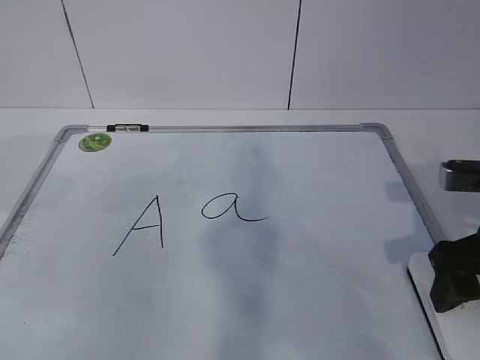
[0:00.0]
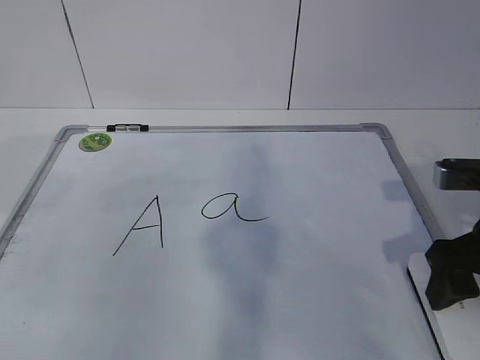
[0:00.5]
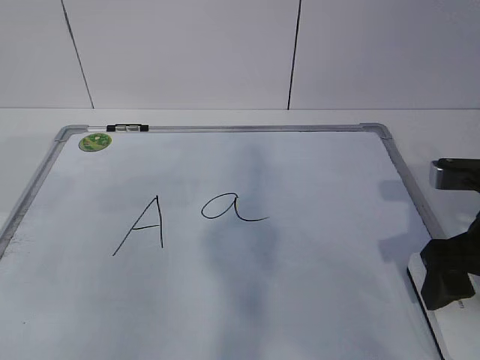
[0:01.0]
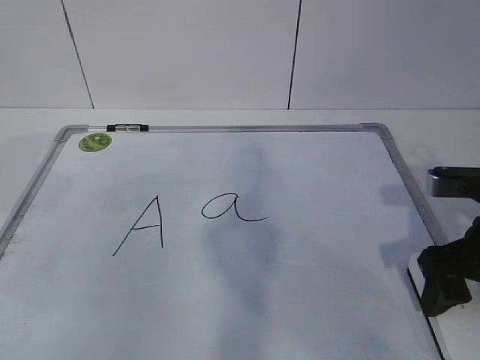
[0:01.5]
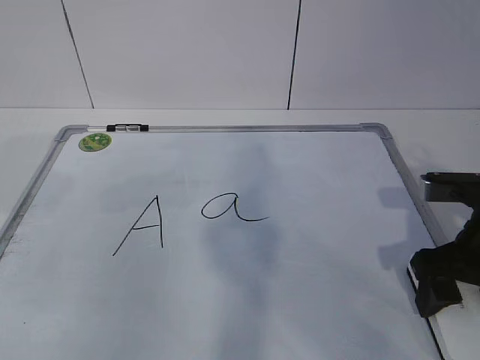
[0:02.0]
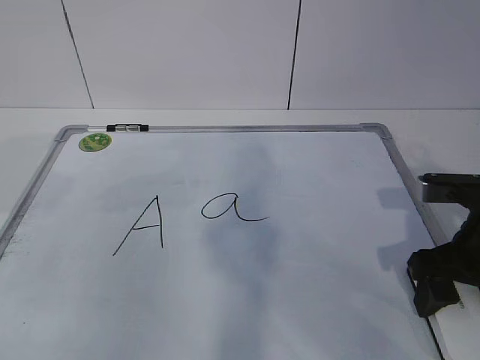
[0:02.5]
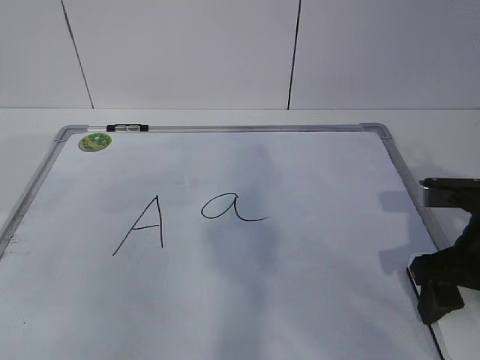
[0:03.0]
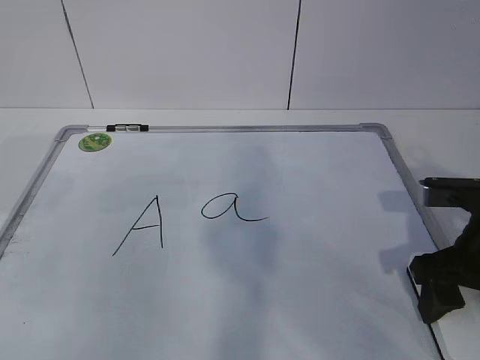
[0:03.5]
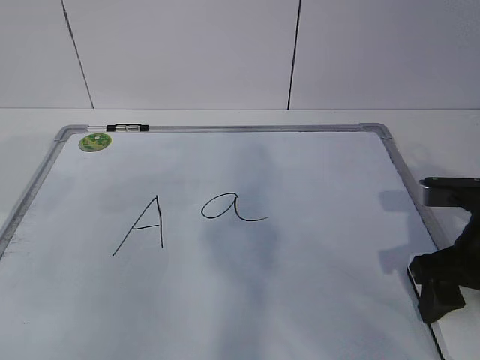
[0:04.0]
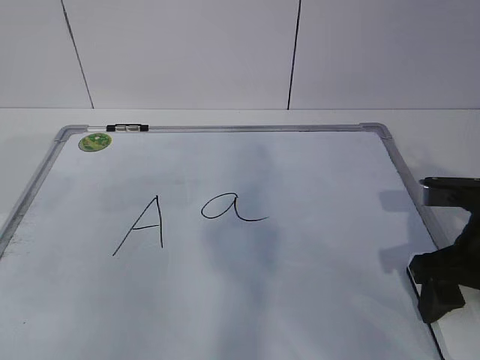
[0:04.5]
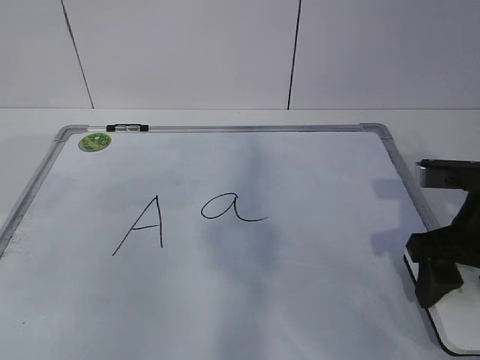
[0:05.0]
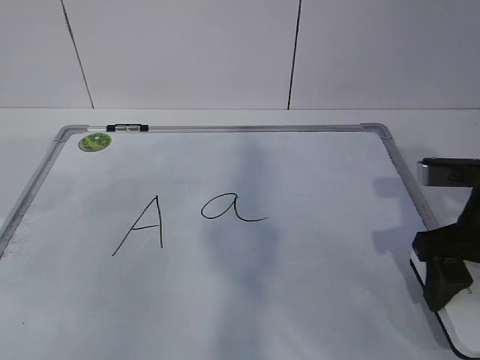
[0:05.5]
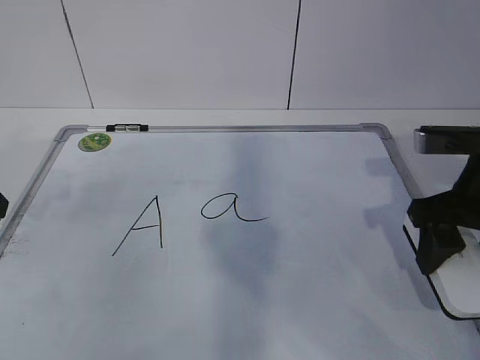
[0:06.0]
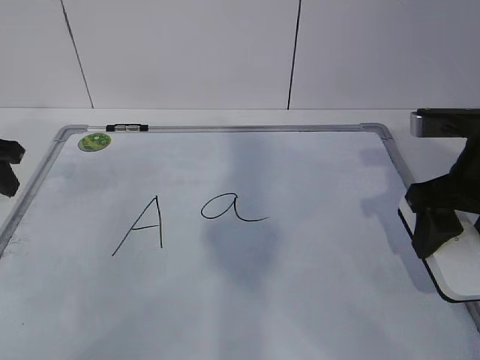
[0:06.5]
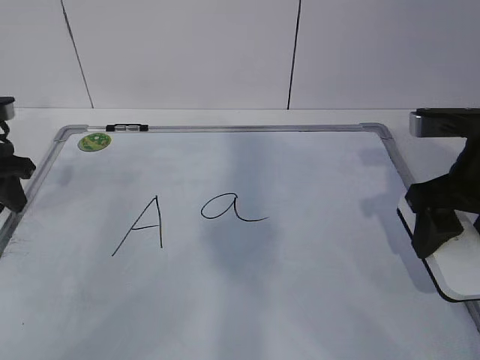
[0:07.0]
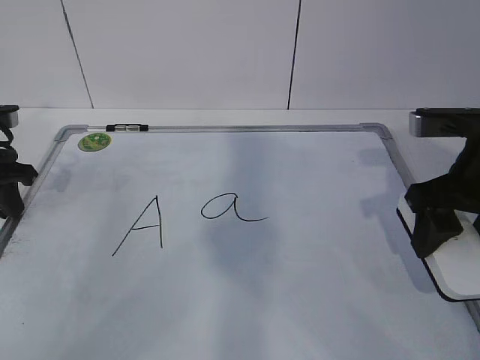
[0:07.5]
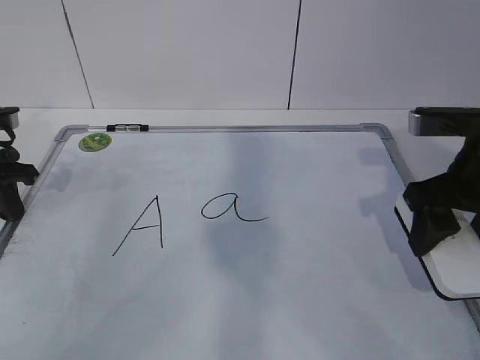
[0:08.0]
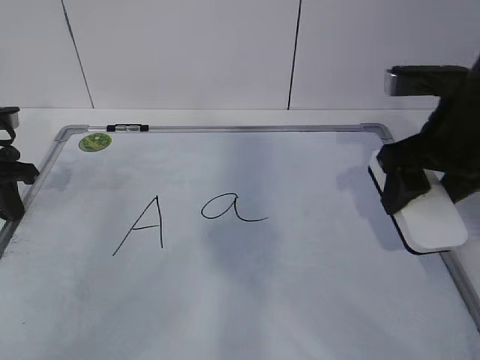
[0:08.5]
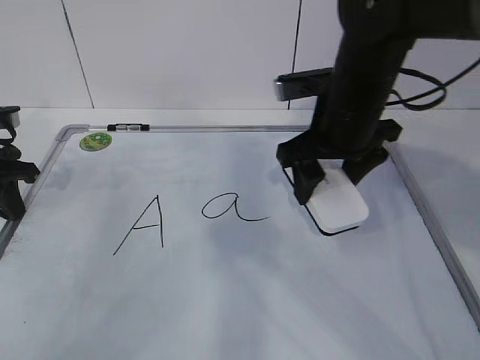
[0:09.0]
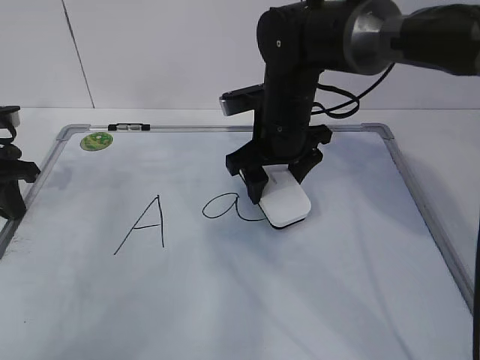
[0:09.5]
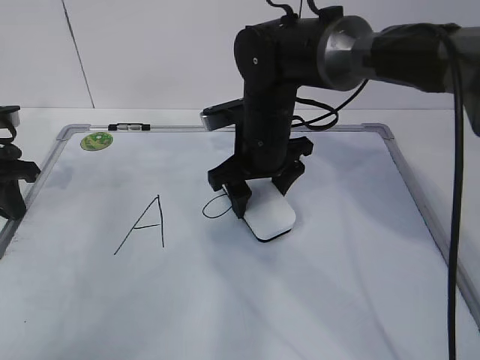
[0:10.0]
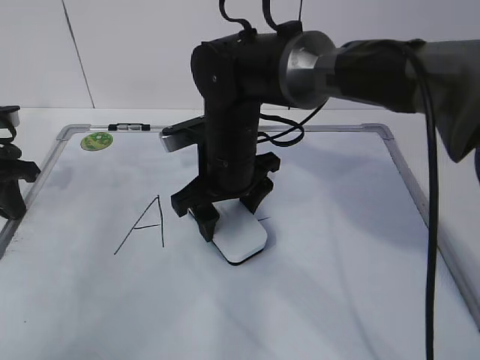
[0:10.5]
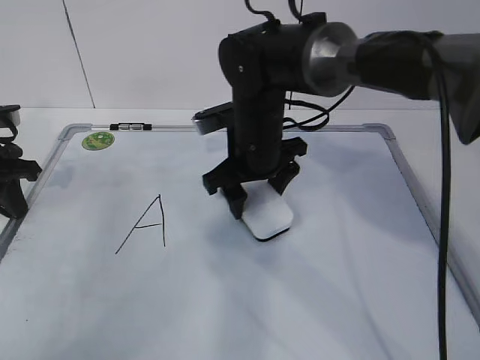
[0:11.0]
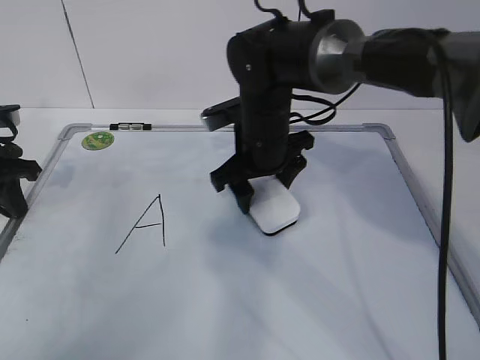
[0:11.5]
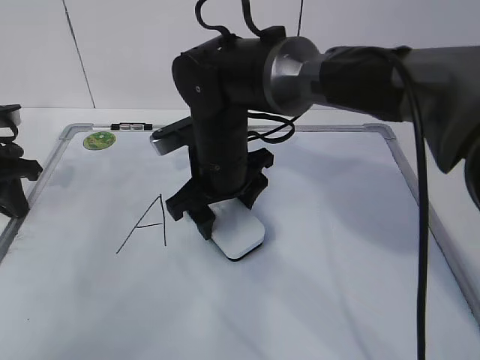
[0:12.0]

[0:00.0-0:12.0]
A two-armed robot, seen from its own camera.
Task of the whole recording: pick up the eraser on the blackboard and erase the letter "a".
Step, 0:05.5 to 0:08.0: Erase the letter a with your right hand.
0:00.0 to 0:02.0: The grippers stay close to where they were, moving slightly.
0:02.0 to 0:04.0: The two grippers keep their place.
0:04.0 to 0:06.0: The right gripper moves about 5 cm.
0:06.0 to 0:08.0: The left gripper travels forward and downward by some 15 cm, and closes up.
0:08.0 to 0:10.0: The right gripper shifts some 20 cm to the left and forward.
0:10.0 to 0:12.0: The right gripper swings left and right, about 5 cm each way, with 2 reversals.

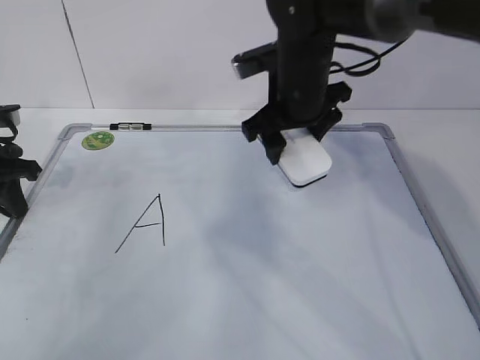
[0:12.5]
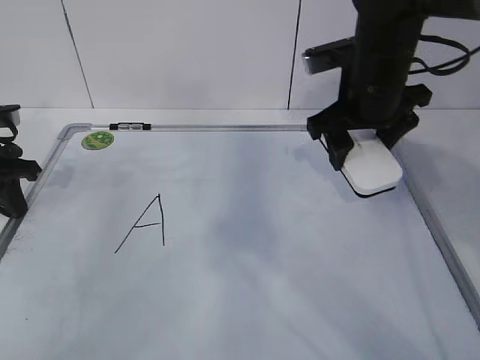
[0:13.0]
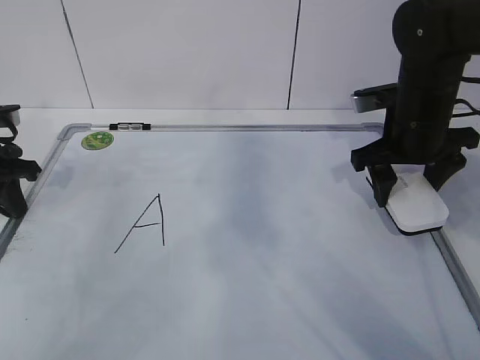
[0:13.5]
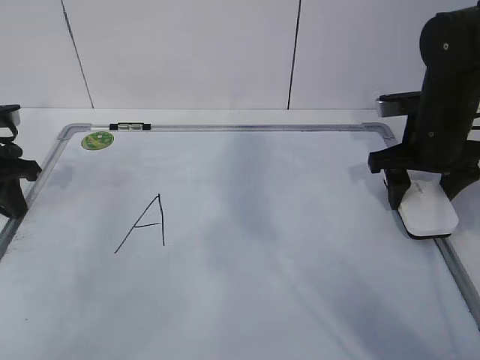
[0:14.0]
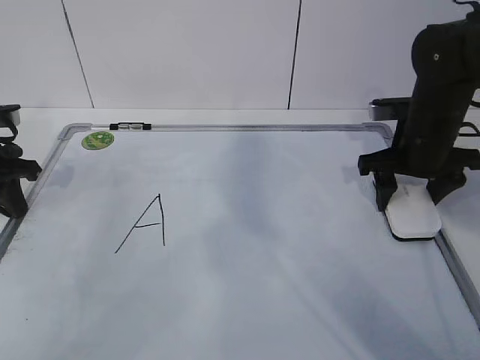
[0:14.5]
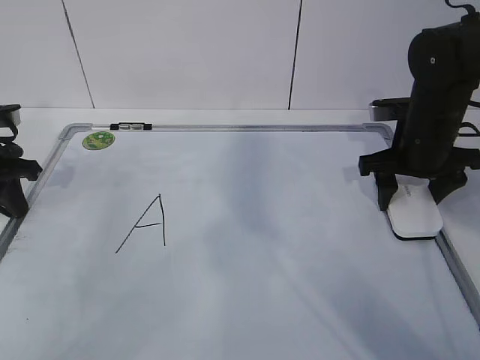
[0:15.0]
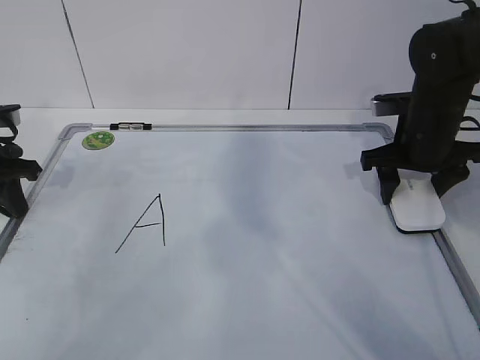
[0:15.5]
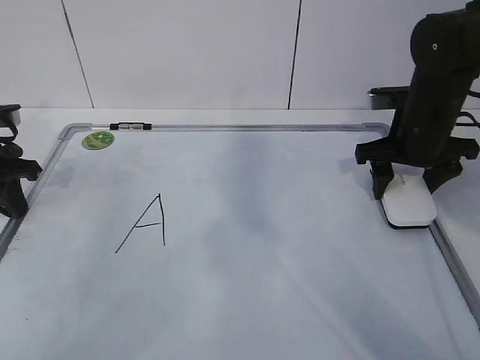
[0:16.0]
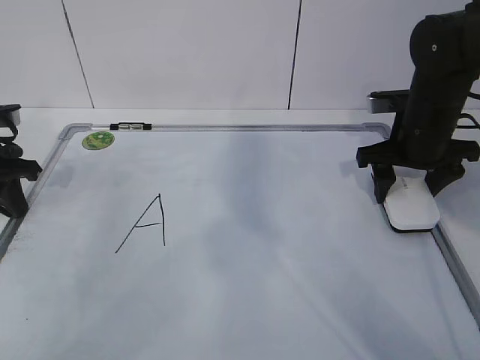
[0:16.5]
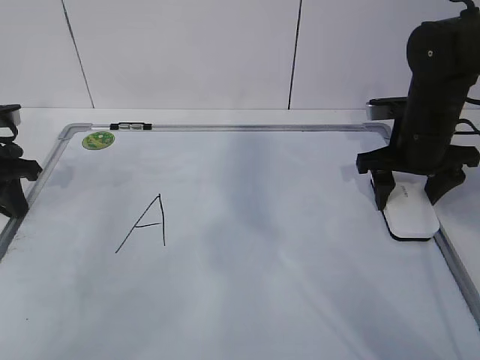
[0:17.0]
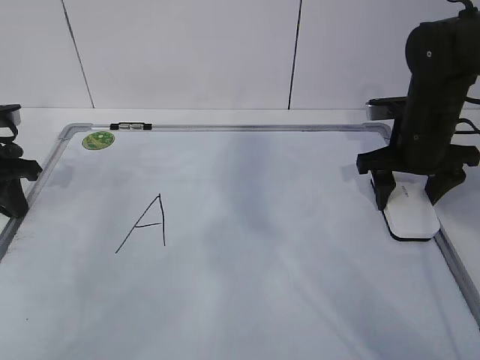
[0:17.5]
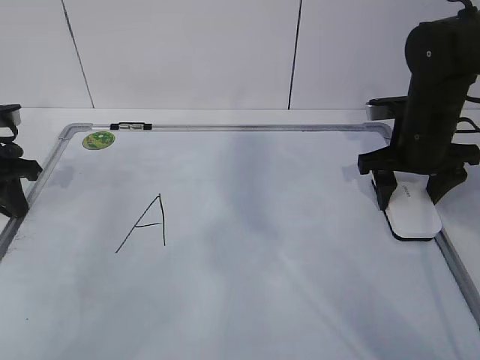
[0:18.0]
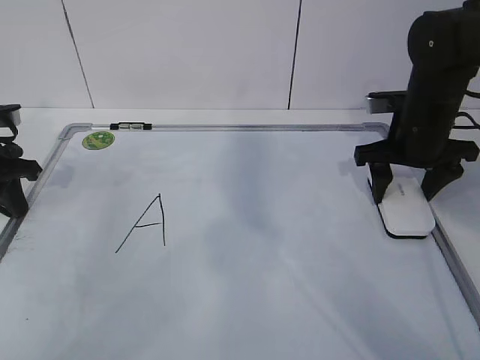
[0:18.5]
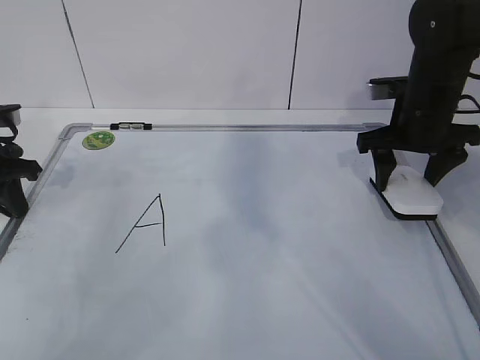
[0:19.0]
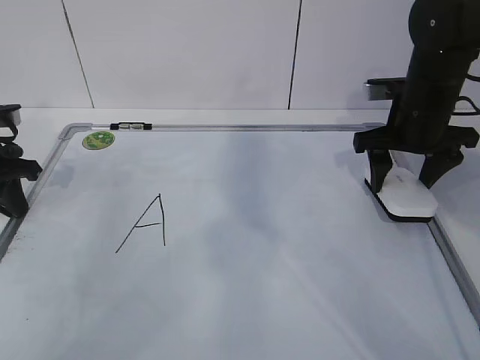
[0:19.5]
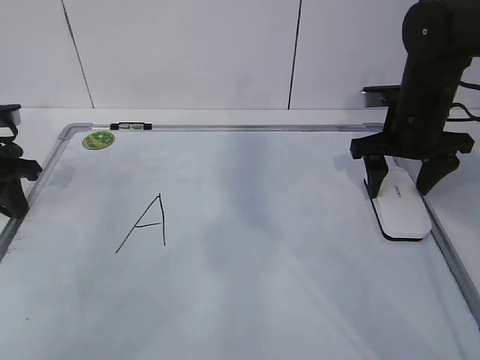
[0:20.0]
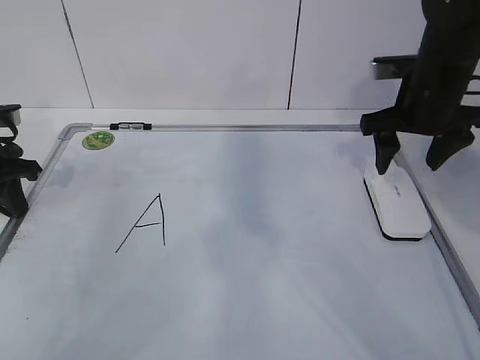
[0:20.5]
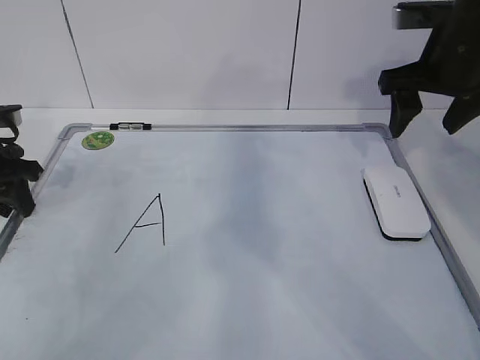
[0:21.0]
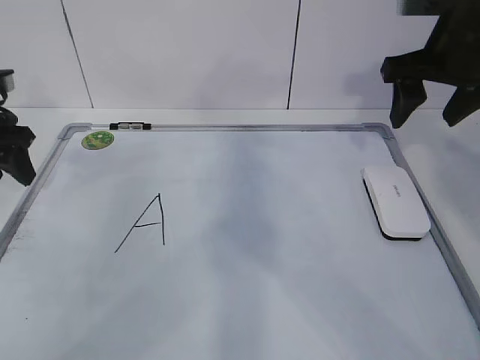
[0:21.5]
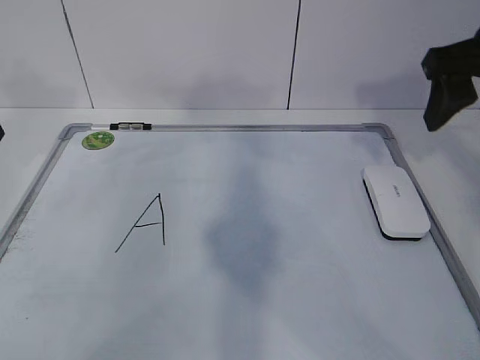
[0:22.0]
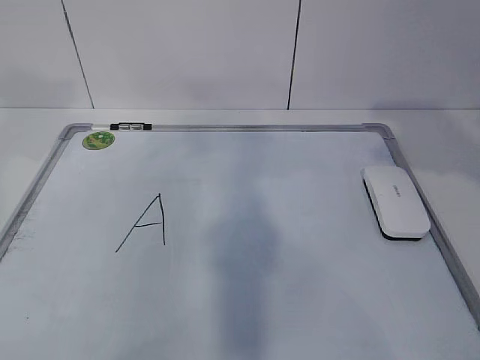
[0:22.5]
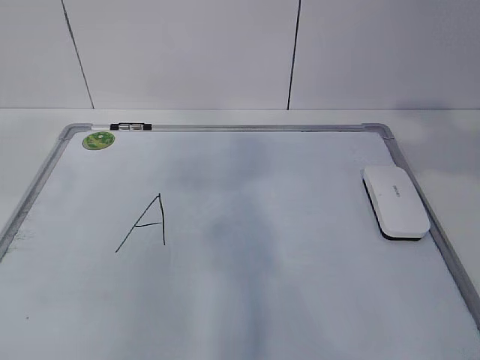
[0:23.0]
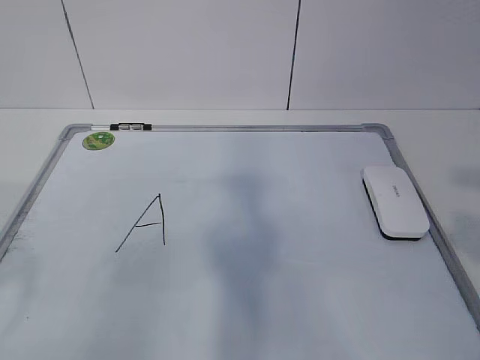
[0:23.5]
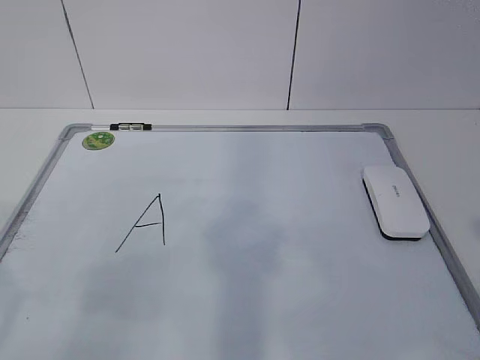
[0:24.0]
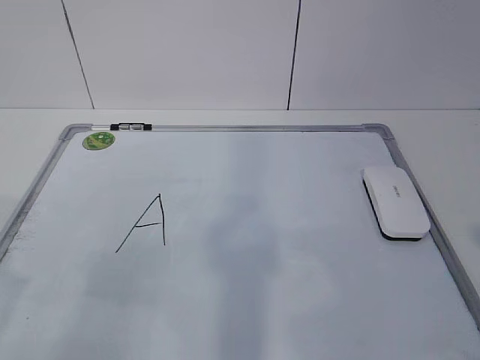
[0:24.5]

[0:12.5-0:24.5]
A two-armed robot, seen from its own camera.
Task of the whole recording: pick up the eraser on the blackboard and erase the letter "a".
Step, 0:12.5 to 0:14.5: Put down the eraser with your right hand.
0:12.5 to 0:14.5: The right gripper shifts some 15 cm to the right.
0:14.5 to 0:18.5: Both grippers stay put.
0:18.5 to 0:20.5: There are only small adjustments of the grippers.
0:20.5 to 0:22.5: The left gripper goes roughly 20 cm upward and backward, and opens. The right gripper shifts about 20 cm backward and upward.
0:22.5 to 0:24.5: The left gripper heads backward, covering some 20 cm. The right gripper moves backward and downward, some 20 cm.

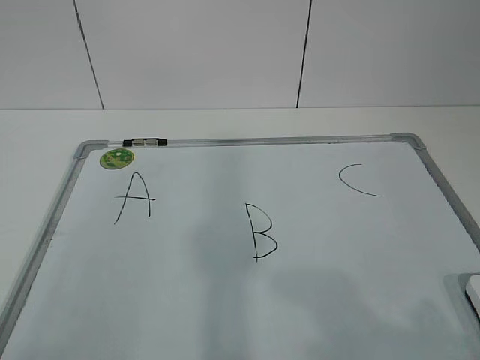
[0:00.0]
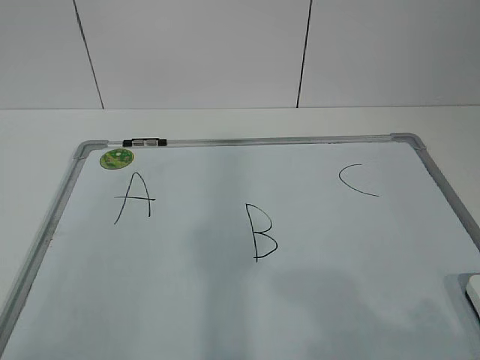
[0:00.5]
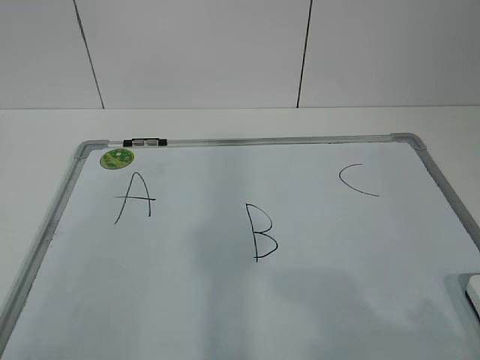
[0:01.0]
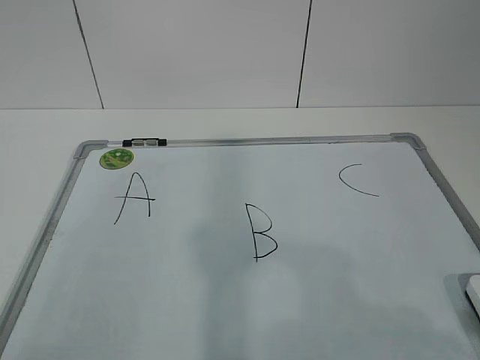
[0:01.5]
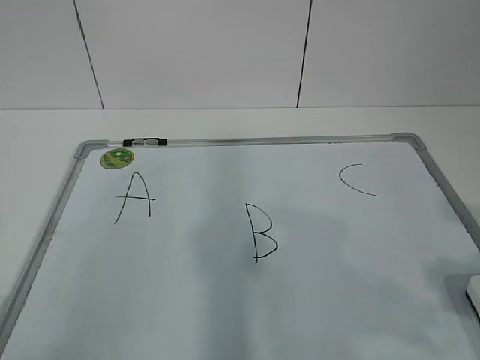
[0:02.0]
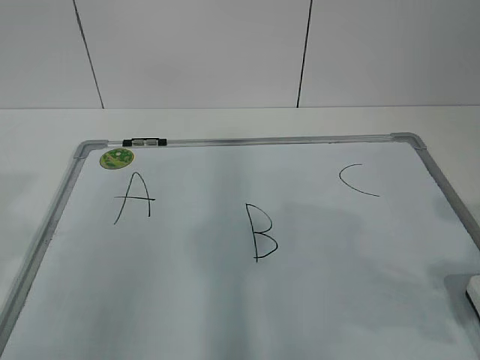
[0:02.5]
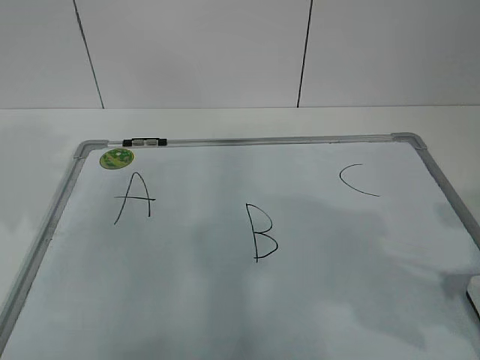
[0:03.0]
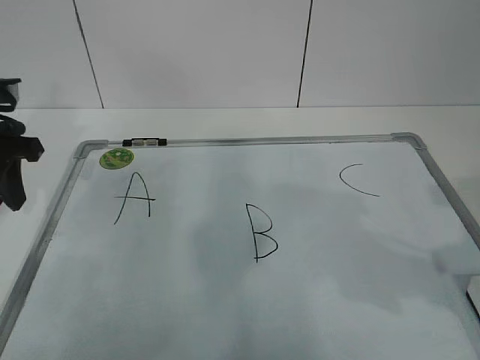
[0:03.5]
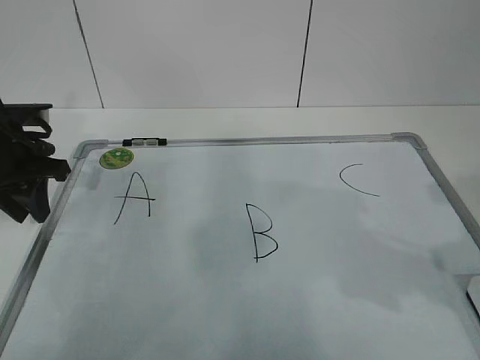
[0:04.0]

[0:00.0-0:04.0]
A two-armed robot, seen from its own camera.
Task of the whole recording: pick up the eraser on the blackboard and erase the letter "B".
Step, 0:00.0 to 0:04.0: Hold the drawing board steady with your left hand.
0:02.0 to 0:04.0: The left gripper shifts some 35 cm forward; the right gripper heads forward, covering roughly 10 cm.
